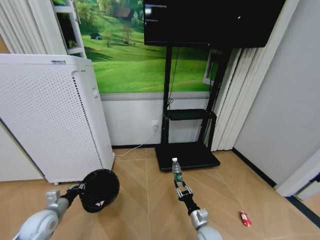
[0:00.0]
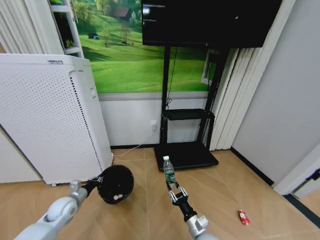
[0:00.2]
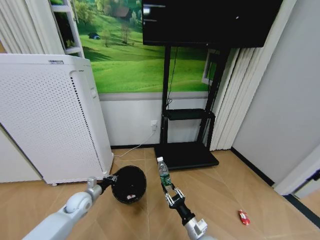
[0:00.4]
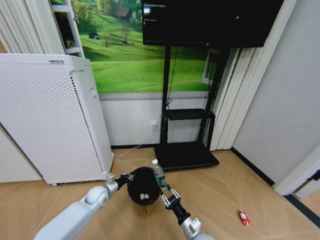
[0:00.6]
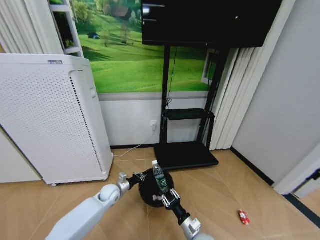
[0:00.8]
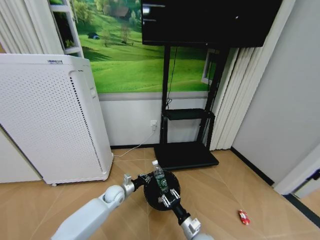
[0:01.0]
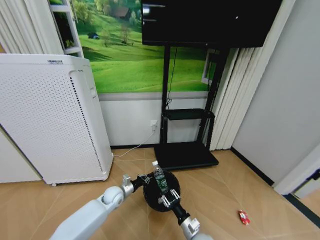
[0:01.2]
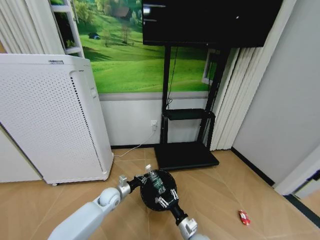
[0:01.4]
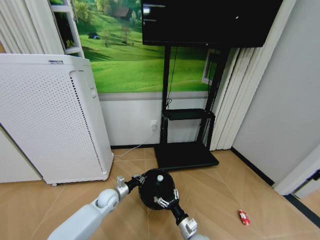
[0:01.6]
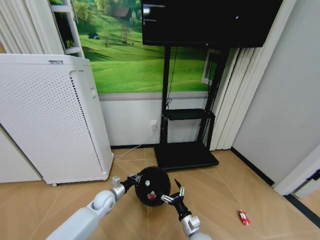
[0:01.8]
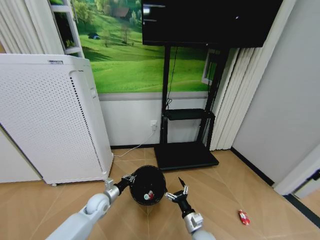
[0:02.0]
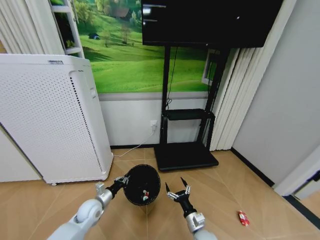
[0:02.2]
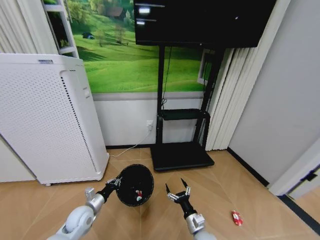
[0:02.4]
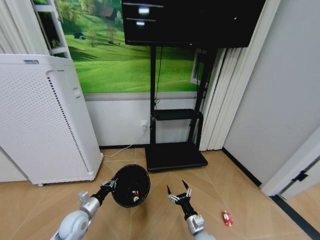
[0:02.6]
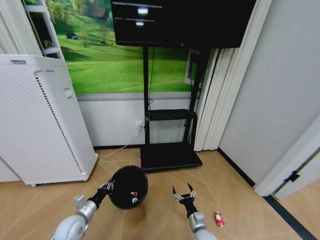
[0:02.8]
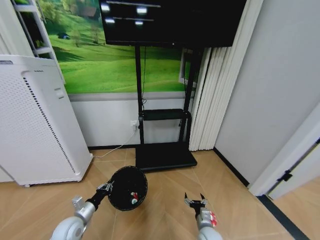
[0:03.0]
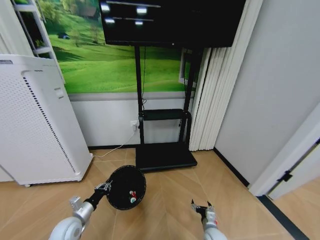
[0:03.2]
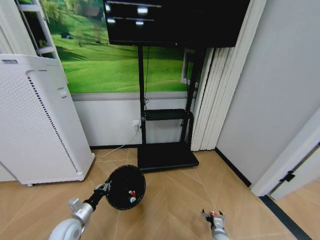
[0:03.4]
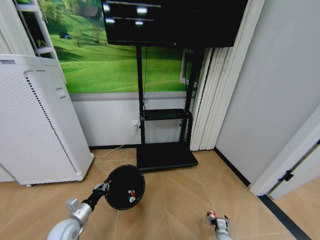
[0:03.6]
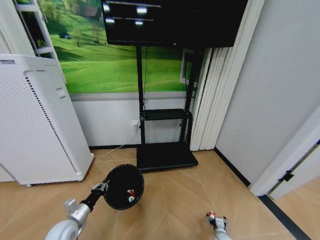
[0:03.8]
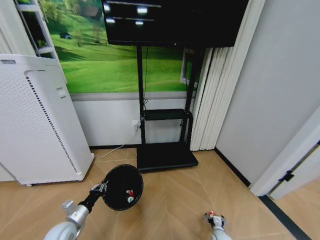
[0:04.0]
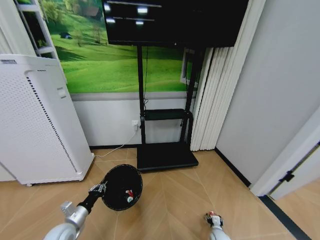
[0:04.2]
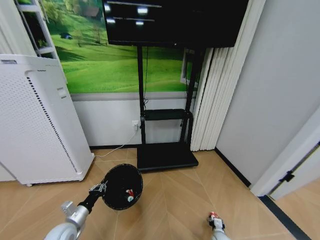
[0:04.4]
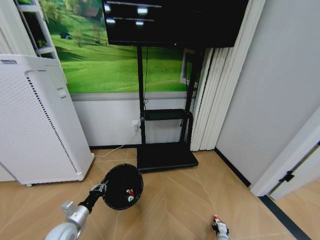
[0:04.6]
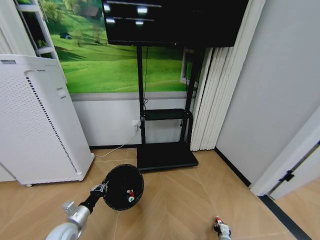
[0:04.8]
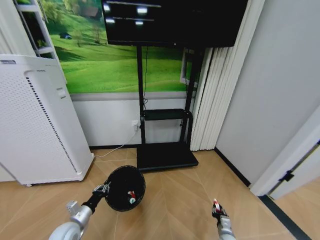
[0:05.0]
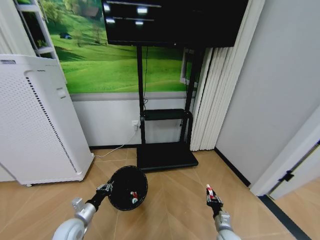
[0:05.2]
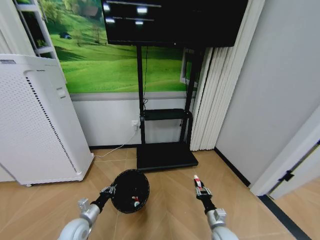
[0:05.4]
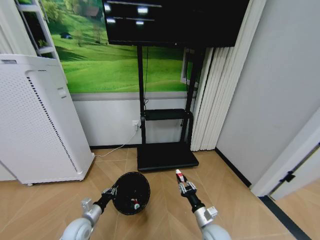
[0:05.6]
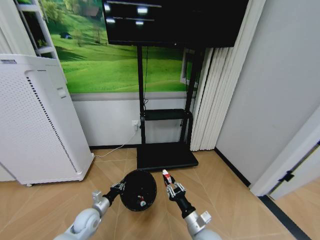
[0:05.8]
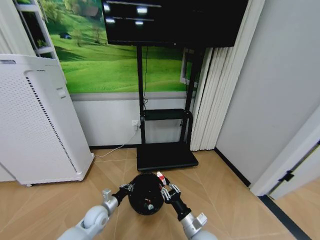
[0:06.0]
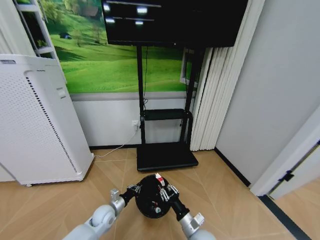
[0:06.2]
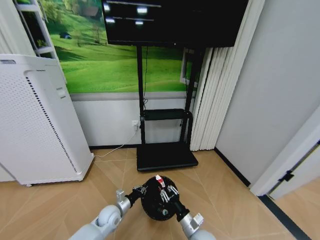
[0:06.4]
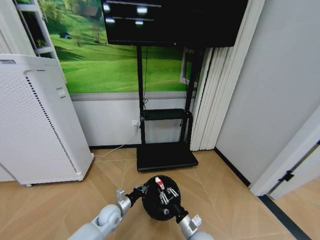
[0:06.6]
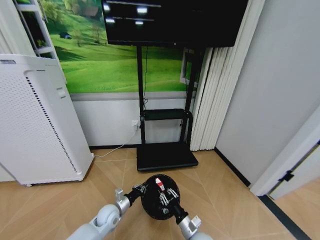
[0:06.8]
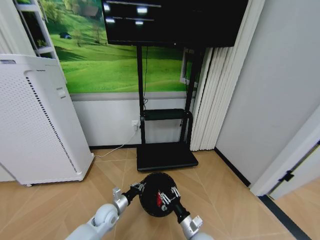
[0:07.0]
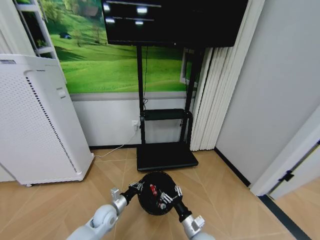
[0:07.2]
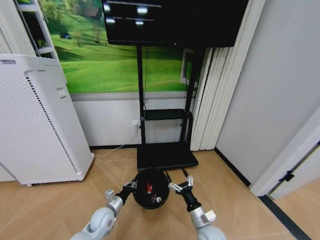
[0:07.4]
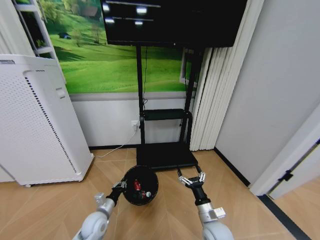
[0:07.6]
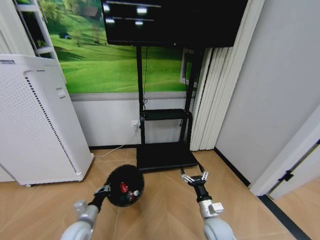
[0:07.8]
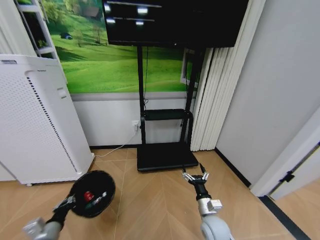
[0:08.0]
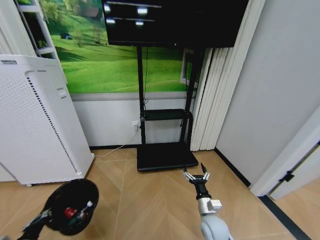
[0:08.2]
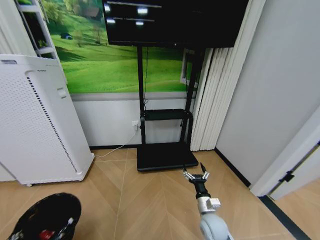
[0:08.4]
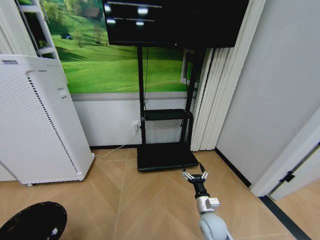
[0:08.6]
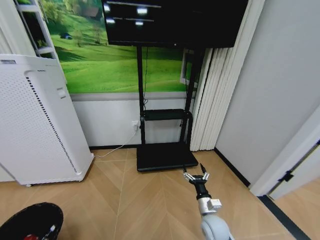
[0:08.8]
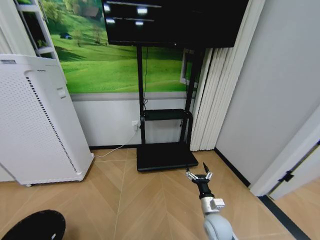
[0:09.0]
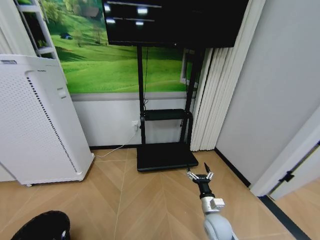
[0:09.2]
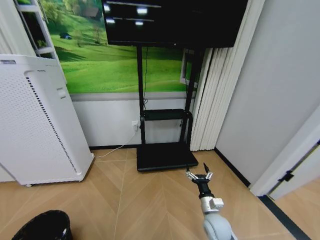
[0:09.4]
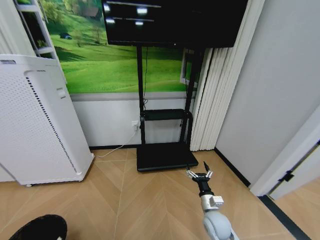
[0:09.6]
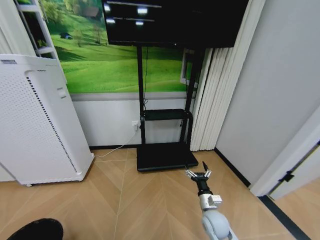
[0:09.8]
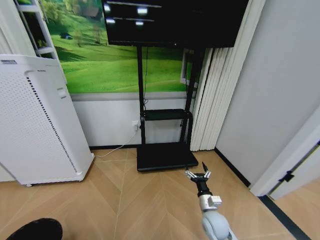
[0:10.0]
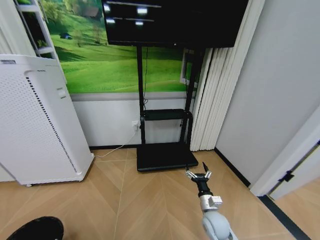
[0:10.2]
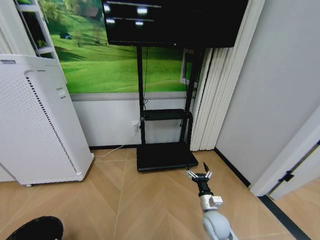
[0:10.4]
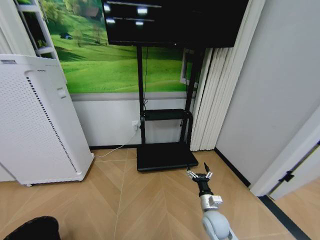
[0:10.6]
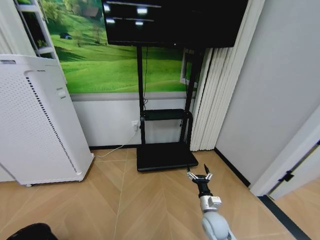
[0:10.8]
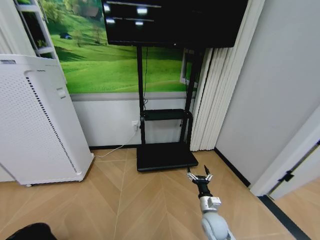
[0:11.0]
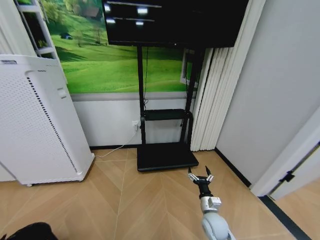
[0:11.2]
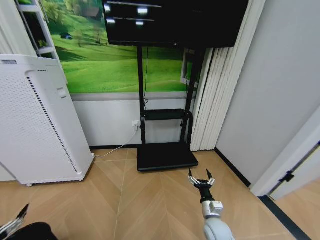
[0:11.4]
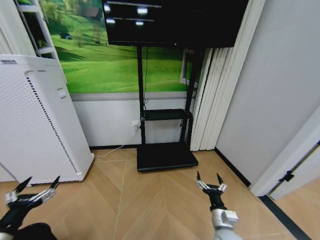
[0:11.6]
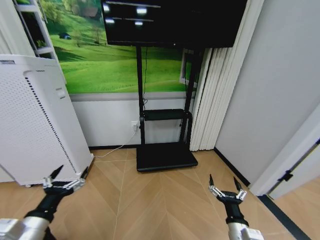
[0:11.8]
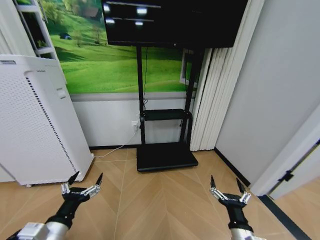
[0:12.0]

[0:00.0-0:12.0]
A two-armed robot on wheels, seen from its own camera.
Task of the whole recording: Pick up the trash bin and place the garbage on the floor into it.
0:00.0 to 0:01.6: The right gripper shifts by about 5 cm, and opens up, while the left gripper heads to the right and forward, covering about 20 cm.
0:01.6 to 0:03.0: The left gripper goes roughly 15 cm backward and to the left, while the right gripper goes approximately 5 cm to the right.
0:03.0 to 0:04.4: The right gripper heads downward and to the right, covering approximately 15 cm, and closes.
0:04.4 to 0:06.0: The left gripper travels to the right, forward and downward by roughly 10 cm; the right gripper is displaced upward and to the left by about 30 cm, and closes up.
0:06.0 to 0:07.6: The right gripper moves roughly 5 cm, and opens.
0:07.6 to 0:09.0: The left gripper shifts some 35 cm to the left and backward.
0:09.0 to 0:10.4: There are only small adjustments of the grippers.
0:10.4 to 0:12.0: The right gripper goes roughly 15 cm backward and upward; the left gripper heads to the right, upward and forward, covering about 30 cm, and opens up.

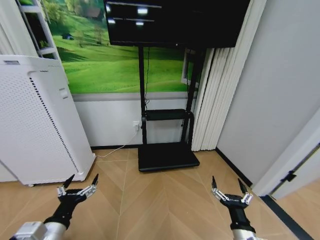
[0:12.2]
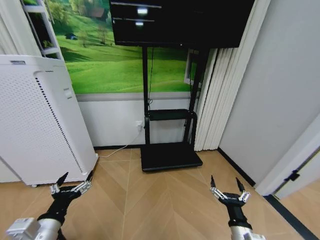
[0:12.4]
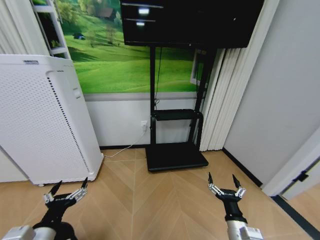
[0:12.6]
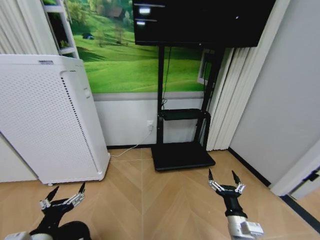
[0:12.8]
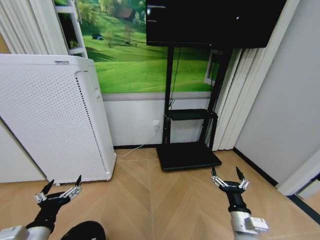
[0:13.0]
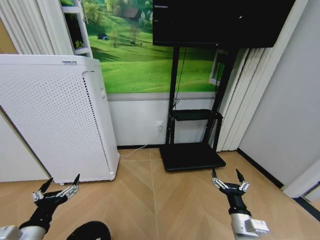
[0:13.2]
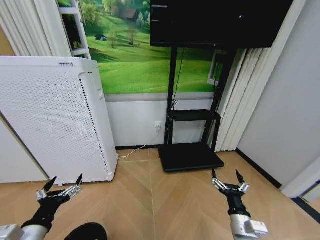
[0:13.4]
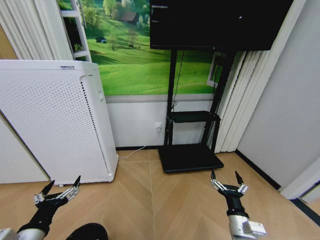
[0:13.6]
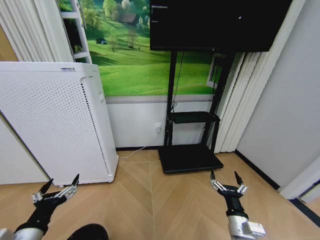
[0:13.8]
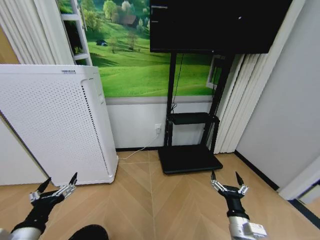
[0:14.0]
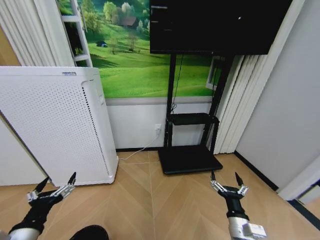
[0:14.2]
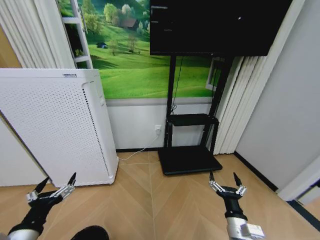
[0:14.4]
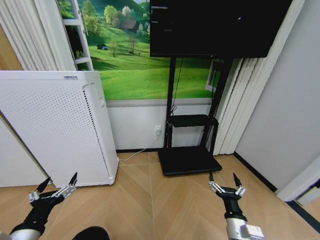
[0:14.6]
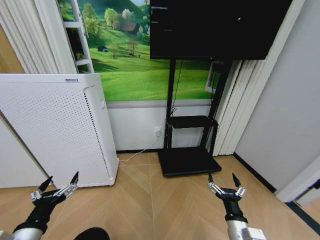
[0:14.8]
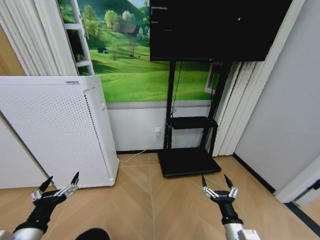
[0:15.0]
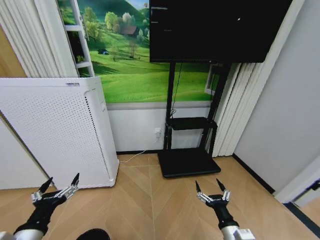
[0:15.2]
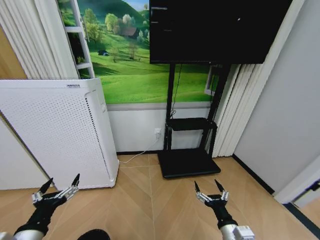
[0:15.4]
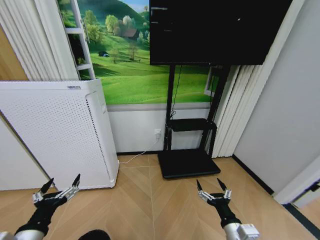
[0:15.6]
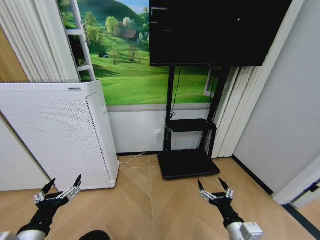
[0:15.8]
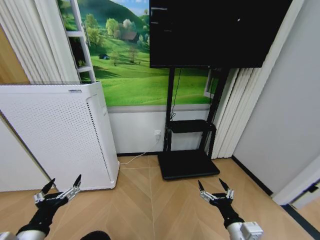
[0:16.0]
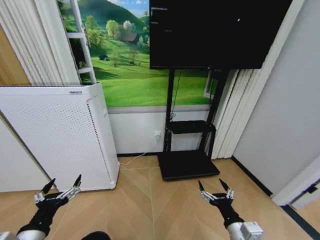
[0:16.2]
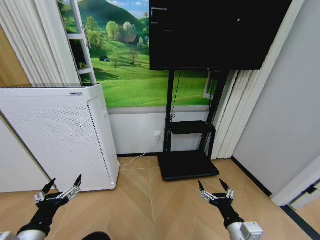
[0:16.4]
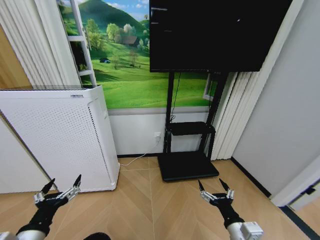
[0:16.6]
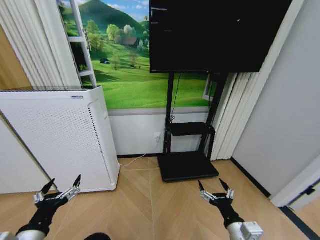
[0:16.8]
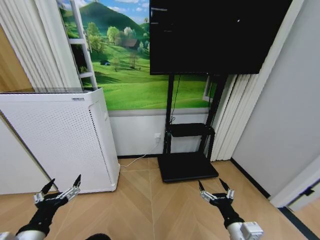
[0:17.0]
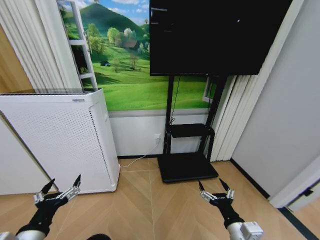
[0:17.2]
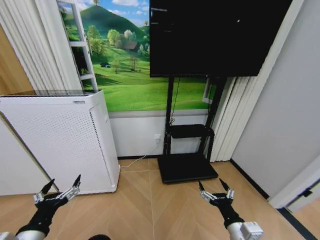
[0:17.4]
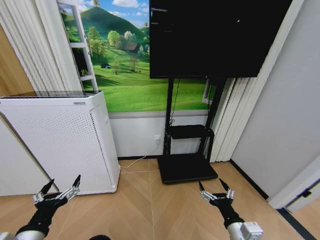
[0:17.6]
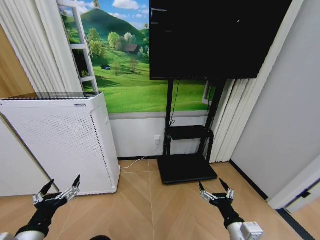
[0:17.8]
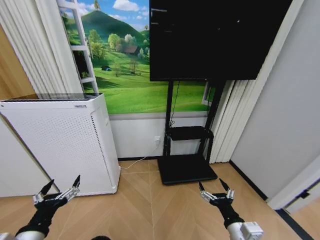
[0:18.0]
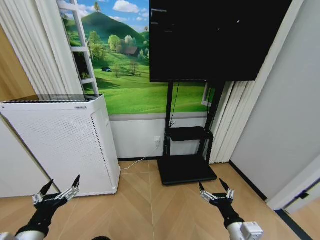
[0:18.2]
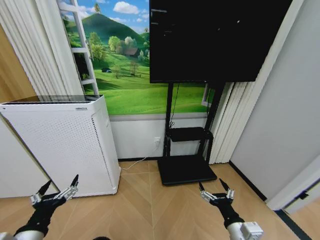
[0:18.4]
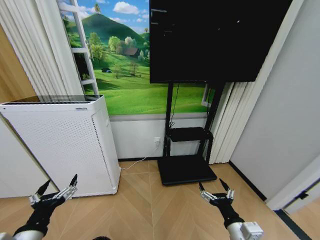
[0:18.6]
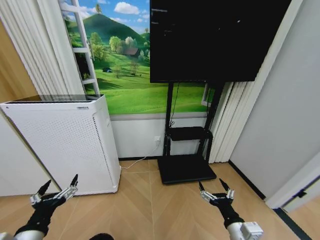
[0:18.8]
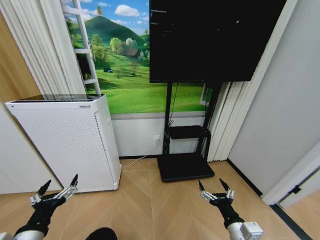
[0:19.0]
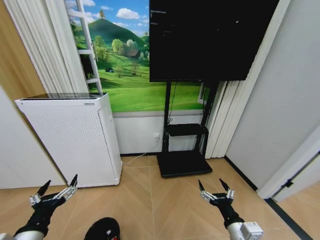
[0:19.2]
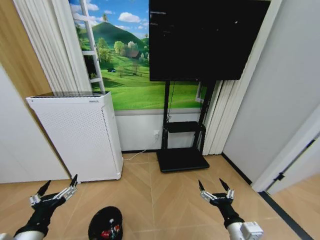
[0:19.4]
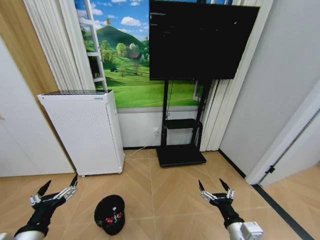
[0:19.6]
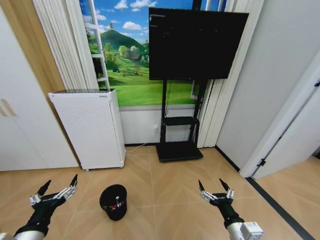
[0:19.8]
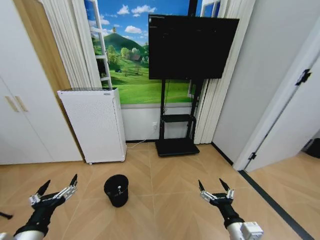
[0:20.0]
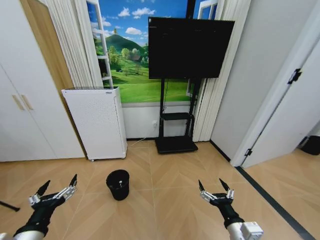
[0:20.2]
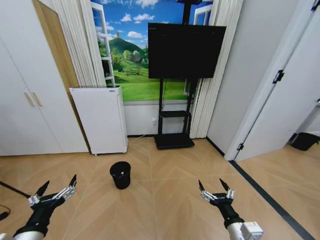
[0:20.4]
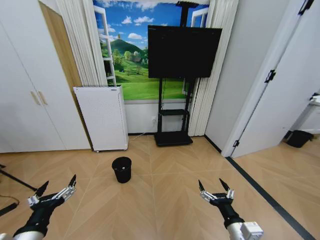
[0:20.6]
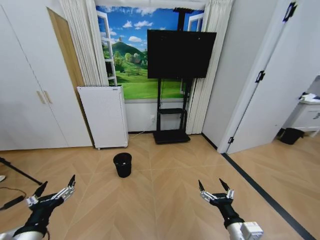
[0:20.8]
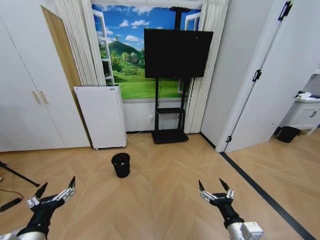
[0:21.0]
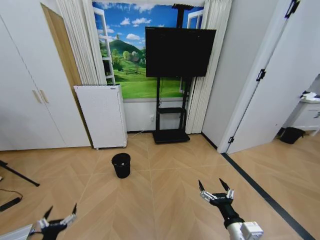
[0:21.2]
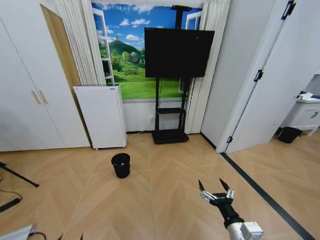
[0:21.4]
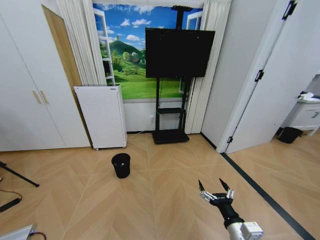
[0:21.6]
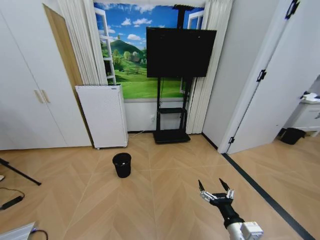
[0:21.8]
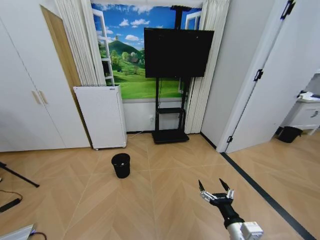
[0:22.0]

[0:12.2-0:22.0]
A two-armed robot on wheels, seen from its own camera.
Task of the whole recording: Pick up the trash bin and place the garbage on the floor into it.
0:15.0 to 0:16.4: The grippers stay close to where they were, moving slightly.
0:16.4 to 0:17.8: The two grippers keep their place.
0:20.6 to 0:22.0: The left gripper heads downward, backward and to the left, covering about 50 cm.
